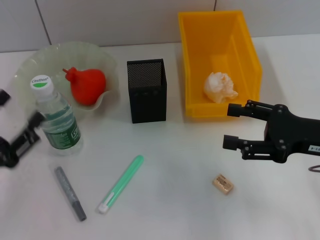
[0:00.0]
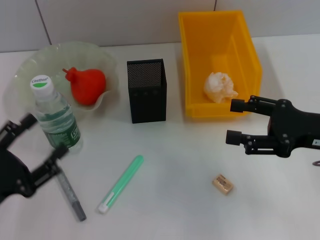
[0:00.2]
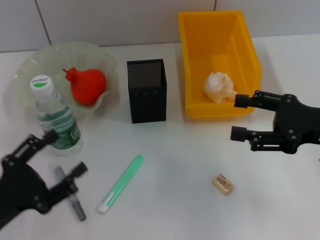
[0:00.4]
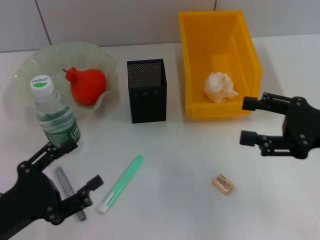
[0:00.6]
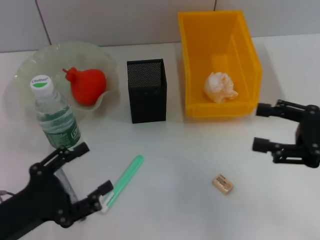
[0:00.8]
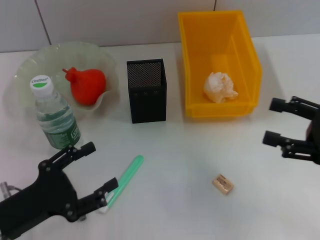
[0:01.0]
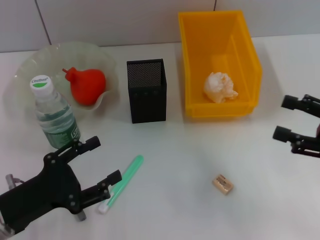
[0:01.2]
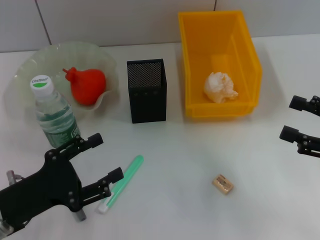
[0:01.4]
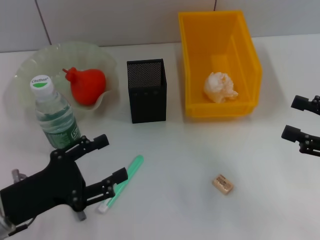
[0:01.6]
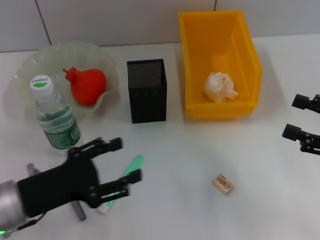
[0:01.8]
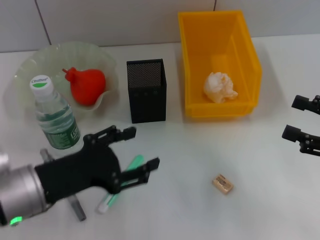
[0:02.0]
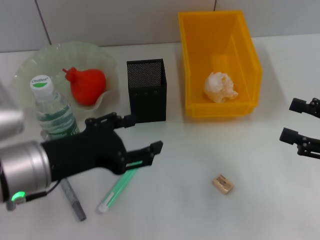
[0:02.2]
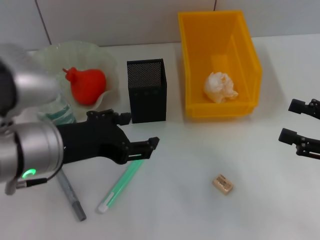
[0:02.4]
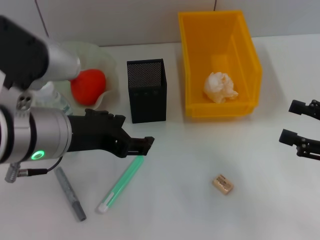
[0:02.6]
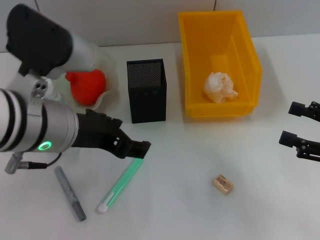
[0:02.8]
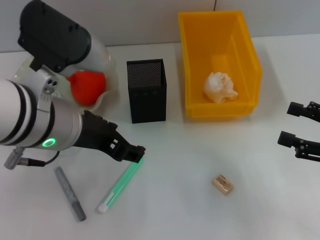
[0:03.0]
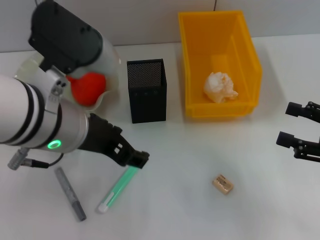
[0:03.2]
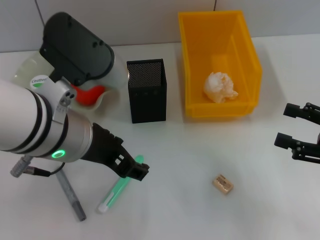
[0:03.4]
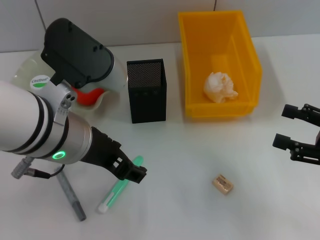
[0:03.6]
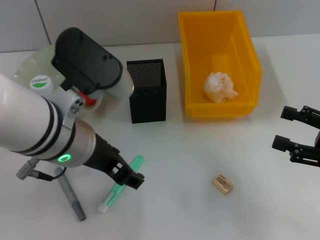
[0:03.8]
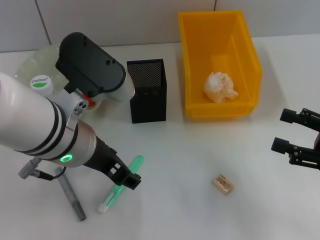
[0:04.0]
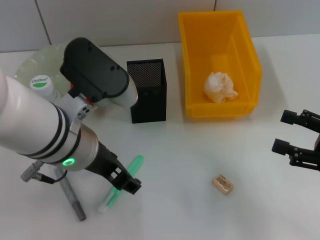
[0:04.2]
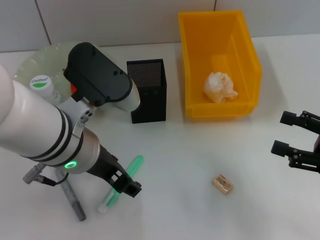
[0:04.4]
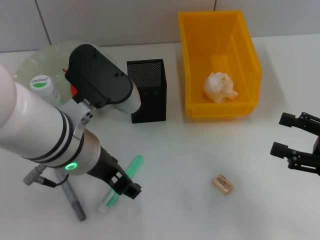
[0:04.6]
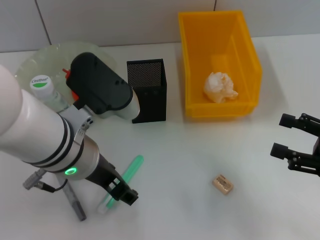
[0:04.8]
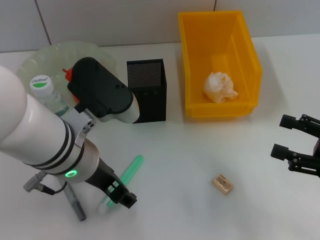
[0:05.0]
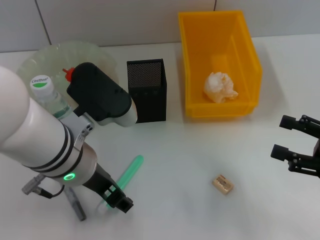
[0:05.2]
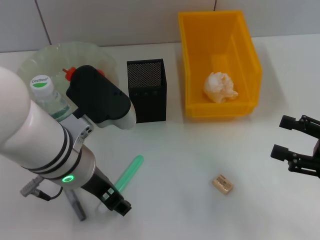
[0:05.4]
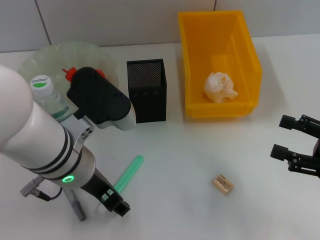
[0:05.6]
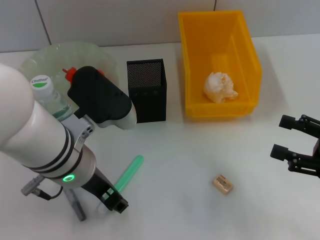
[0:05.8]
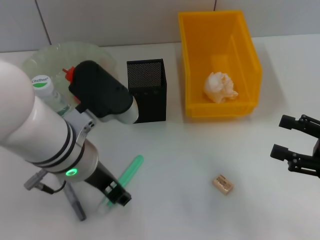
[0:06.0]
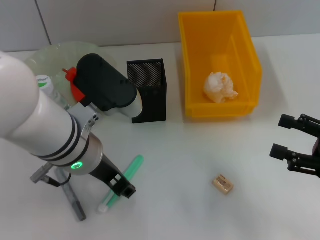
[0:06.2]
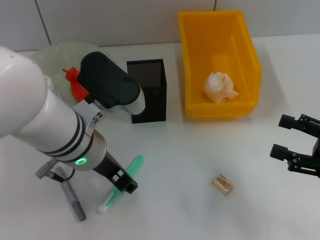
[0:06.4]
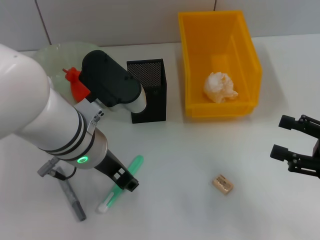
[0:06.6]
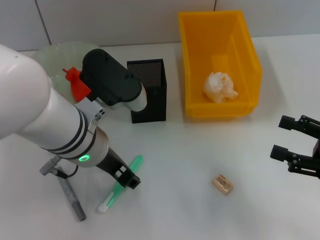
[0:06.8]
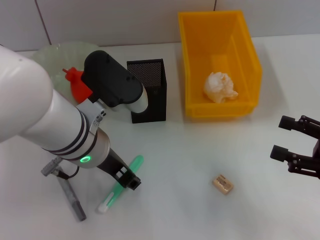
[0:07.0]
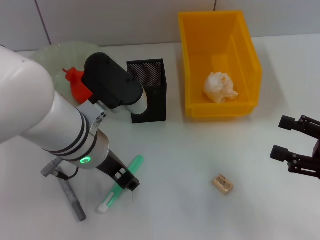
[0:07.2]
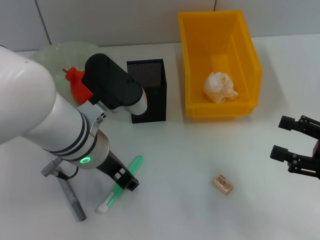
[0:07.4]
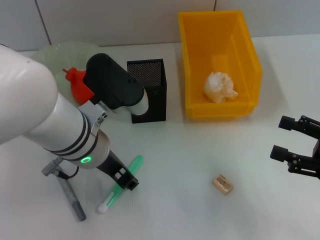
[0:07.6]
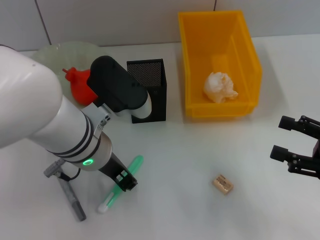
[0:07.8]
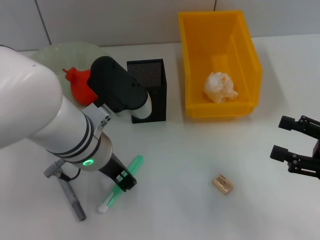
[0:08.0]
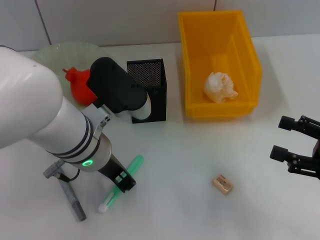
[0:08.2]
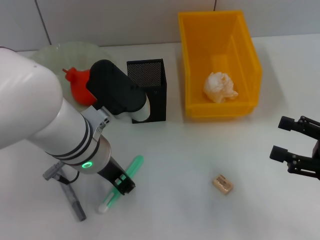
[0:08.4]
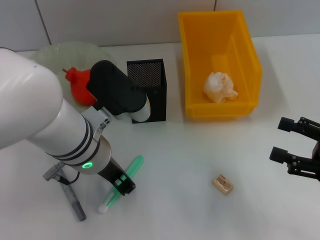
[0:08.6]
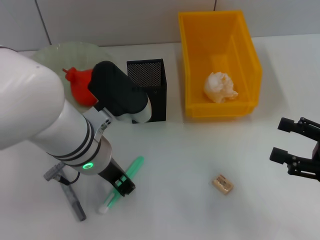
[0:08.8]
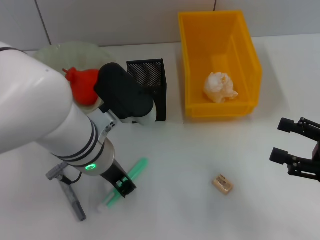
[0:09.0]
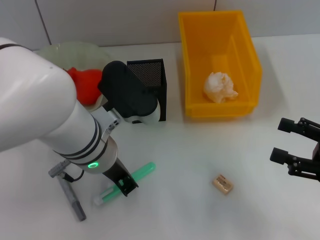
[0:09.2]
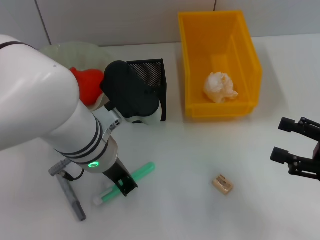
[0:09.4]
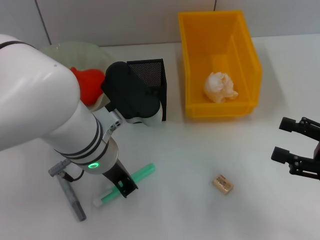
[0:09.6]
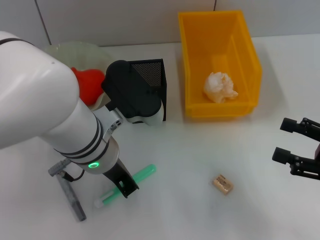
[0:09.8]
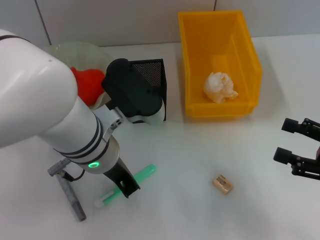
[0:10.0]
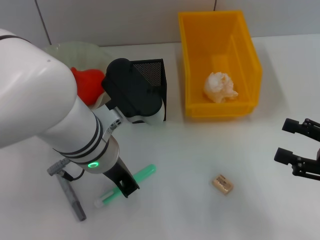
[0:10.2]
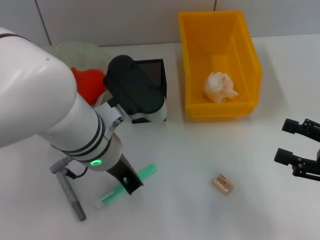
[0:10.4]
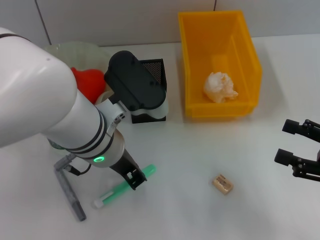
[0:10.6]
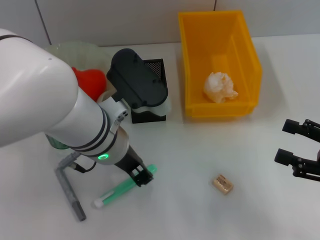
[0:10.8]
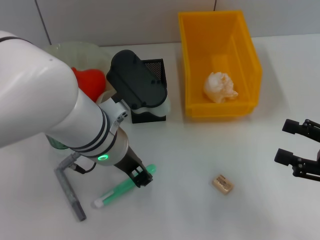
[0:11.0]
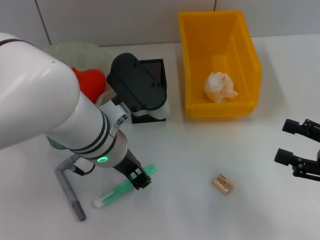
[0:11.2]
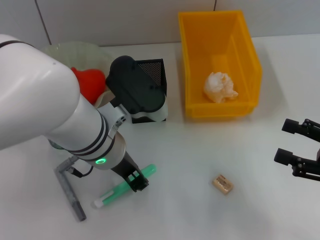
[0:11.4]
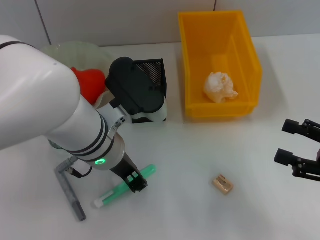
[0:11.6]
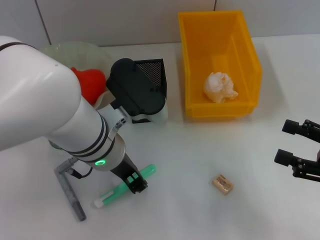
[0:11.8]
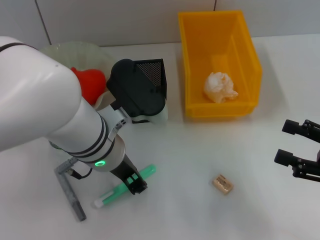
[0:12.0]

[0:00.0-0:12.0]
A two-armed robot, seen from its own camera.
0:00.0 to 0:01.6: Both grippers move to the right, some 5 cm.
0:01.6 to 0:03.0: The left gripper heads upward, to the right and forward, covering about 20 cm.
0:04.4 to 0:07.6: The grippers move only a little.
0:07.6 to 0:09.0: Both grippers stay about where they are.
0:09.0 to 0:10.4: The left gripper closes.
0:10.4 to 0:12.0: The left gripper opens.

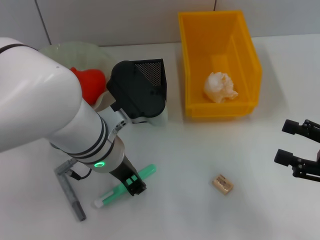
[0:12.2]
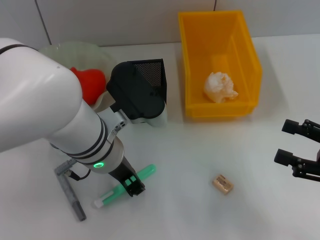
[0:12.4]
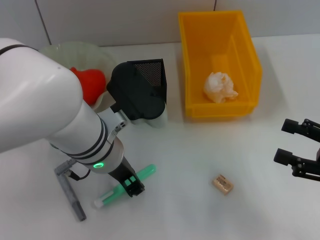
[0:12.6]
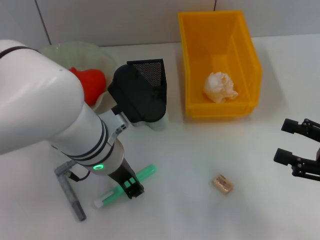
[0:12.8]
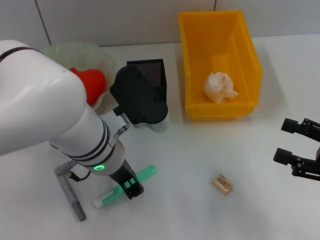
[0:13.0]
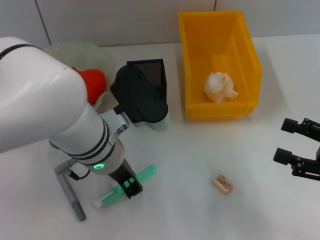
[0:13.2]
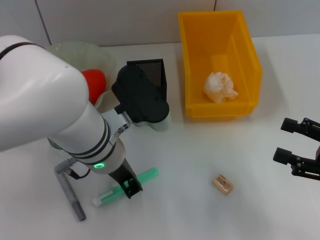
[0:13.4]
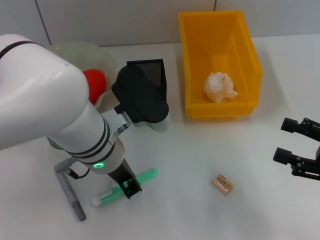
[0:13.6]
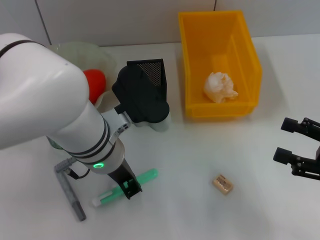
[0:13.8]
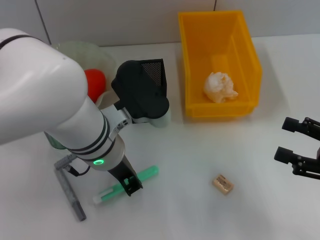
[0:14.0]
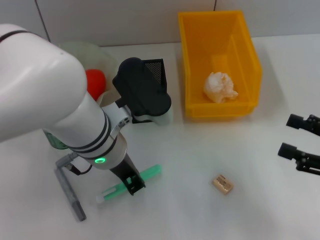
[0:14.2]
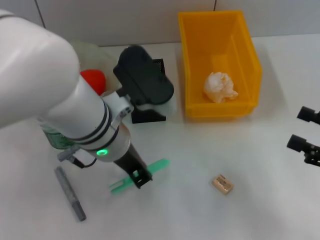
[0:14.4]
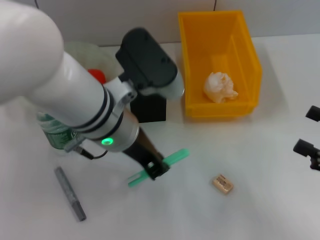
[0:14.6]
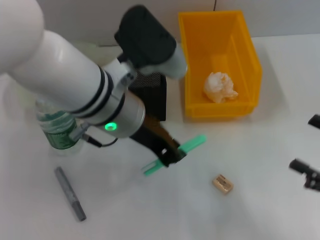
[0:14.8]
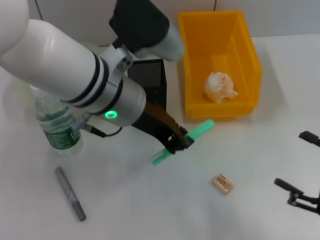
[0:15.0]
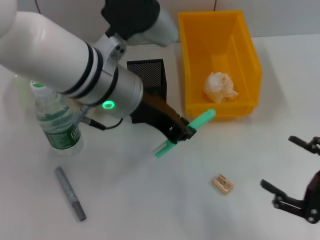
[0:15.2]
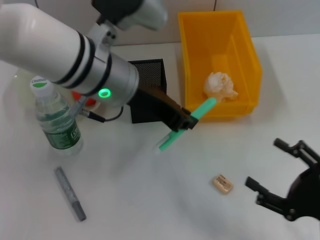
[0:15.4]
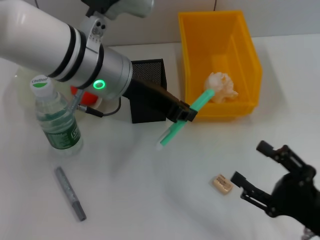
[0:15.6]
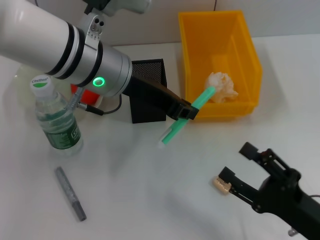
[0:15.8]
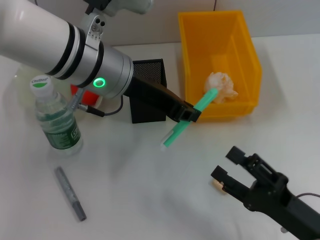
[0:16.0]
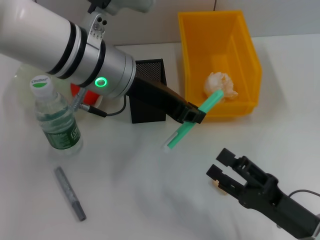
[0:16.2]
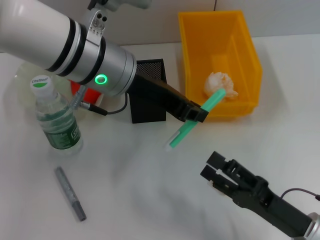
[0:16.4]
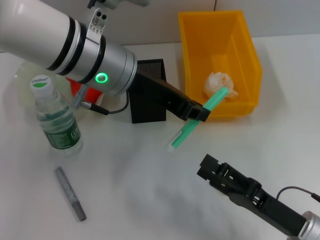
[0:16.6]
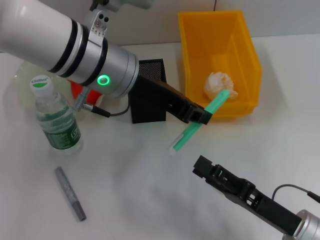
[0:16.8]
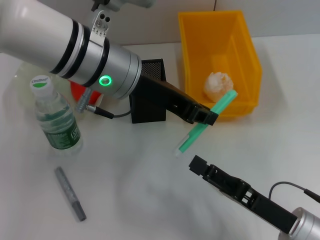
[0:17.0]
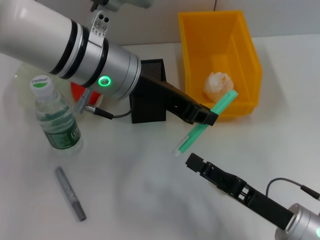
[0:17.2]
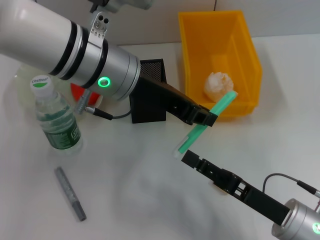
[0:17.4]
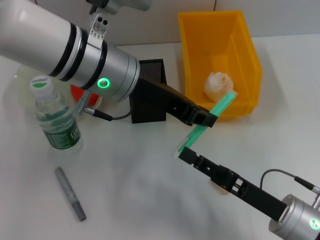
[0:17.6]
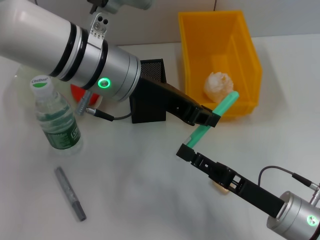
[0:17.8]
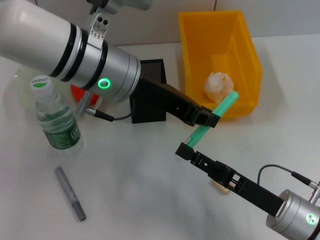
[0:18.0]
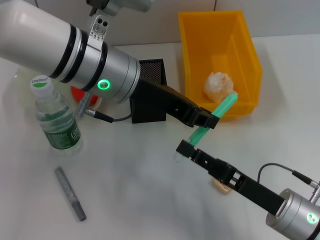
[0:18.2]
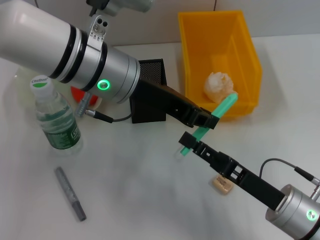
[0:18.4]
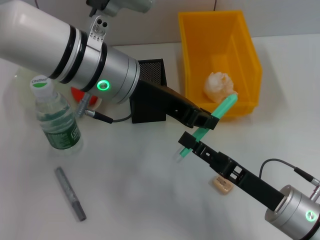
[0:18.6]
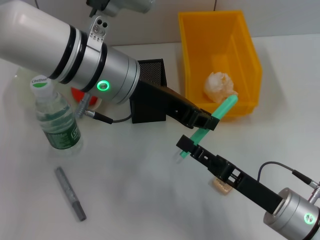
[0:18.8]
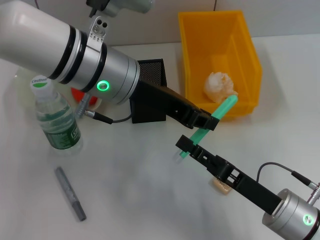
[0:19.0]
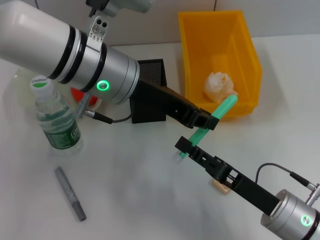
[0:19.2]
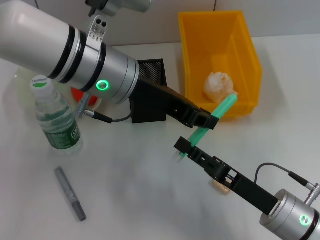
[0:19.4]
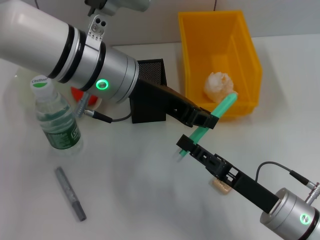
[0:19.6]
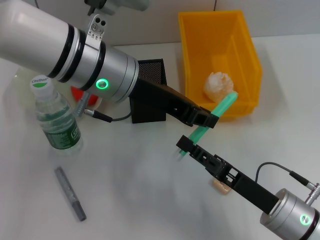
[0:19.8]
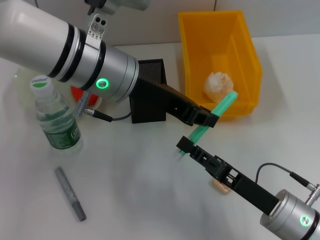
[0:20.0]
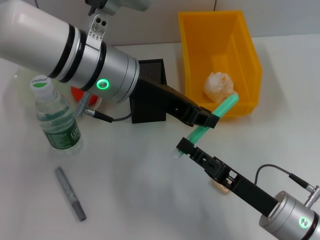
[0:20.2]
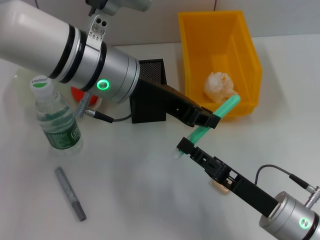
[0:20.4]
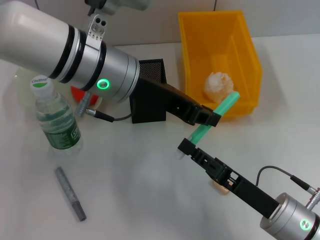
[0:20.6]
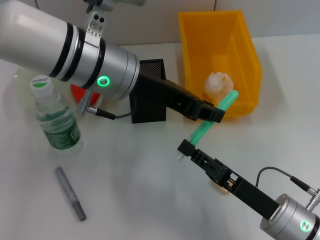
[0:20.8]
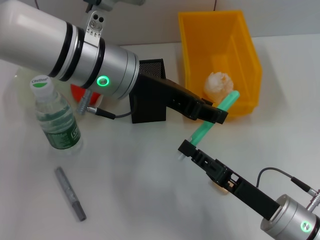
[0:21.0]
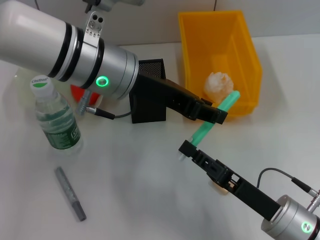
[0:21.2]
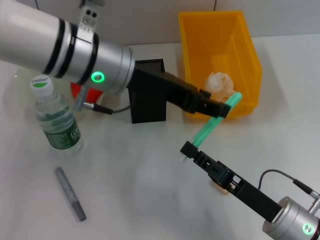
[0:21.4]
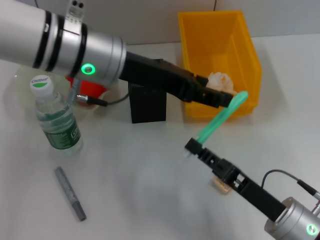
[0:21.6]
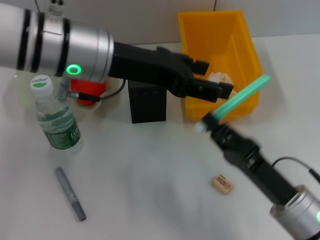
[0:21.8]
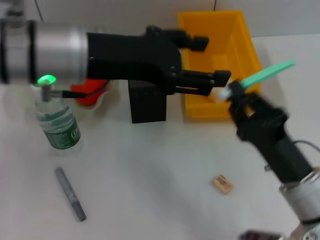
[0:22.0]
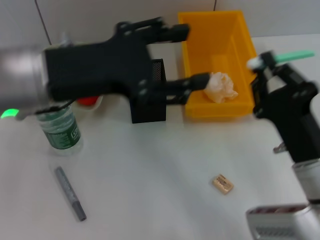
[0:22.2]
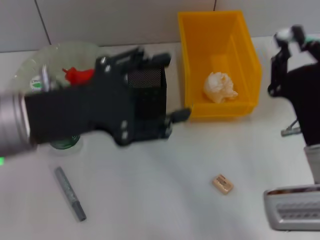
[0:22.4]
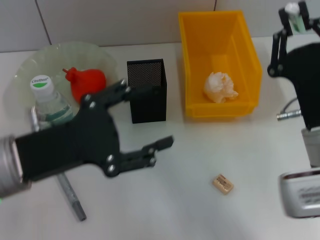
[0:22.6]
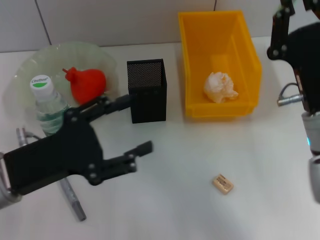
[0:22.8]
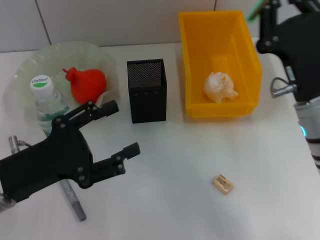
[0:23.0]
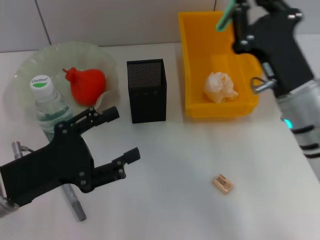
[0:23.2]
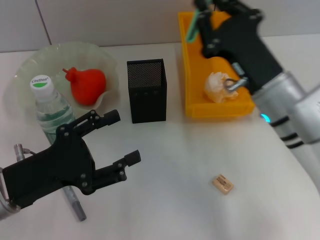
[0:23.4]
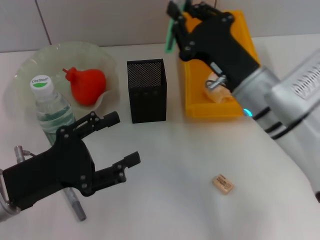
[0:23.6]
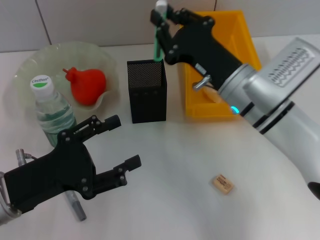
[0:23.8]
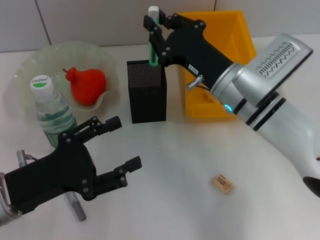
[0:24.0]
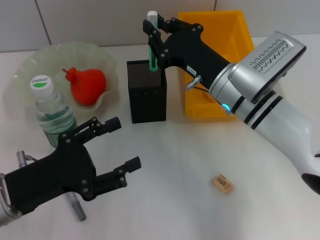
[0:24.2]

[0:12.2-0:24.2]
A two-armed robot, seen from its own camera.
Step, 0:13.2 to 0:21.4: Pass the blue utility knife from the left hand to the right hand.
0:12.2 to 0:13.8: The two grippers keep their place.
0:13.8 to 0:15.2: The left gripper goes approximately 10 cm upward, while the right gripper shifts roughly 5 cm backward.
0:15.2 to 0:16.6: The right gripper goes roughly 10 cm to the left.
0:16.6 to 0:18.2: The grippers move only a little.
0:18.2 to 0:19.8: The right gripper closes its fingers.
0:19.8 to 0:21.2: Both grippers stay about where they are.
0:21.2 to 0:22.6: The right gripper travels upward and forward by about 10 cm, while the left gripper heads to the left, backward and downward, covering about 15 cm, and opens up.
0:22.6 to 0:24.2: The right gripper heads forward and to the left, covering roughly 15 cm. Meanwhile the left gripper goes about 5 cm downward.
